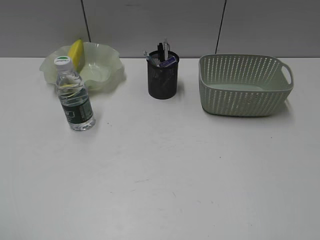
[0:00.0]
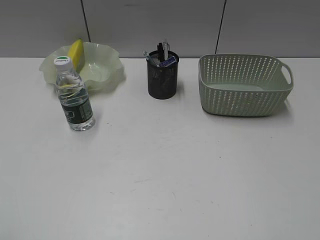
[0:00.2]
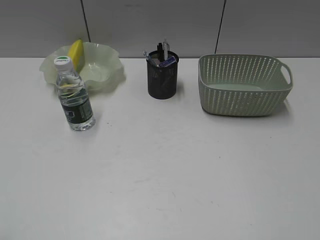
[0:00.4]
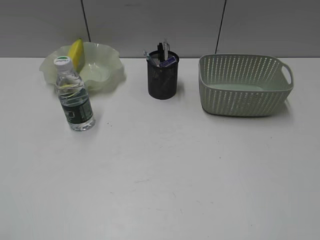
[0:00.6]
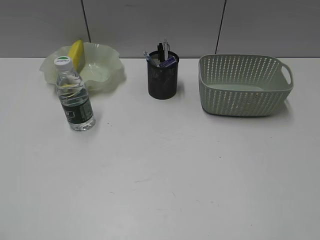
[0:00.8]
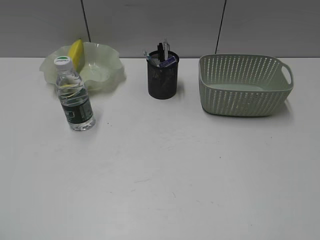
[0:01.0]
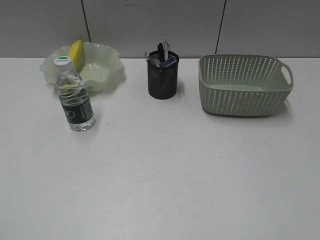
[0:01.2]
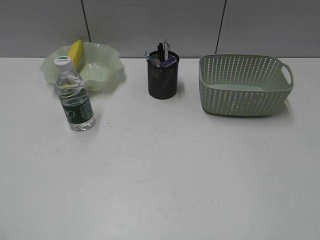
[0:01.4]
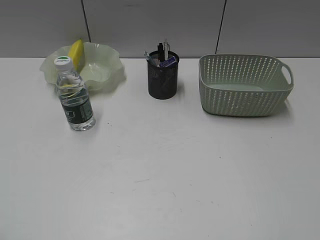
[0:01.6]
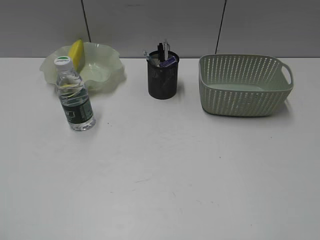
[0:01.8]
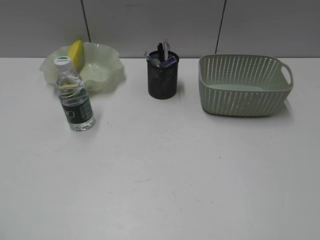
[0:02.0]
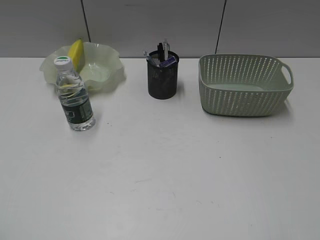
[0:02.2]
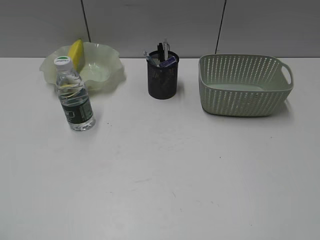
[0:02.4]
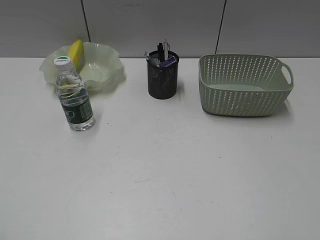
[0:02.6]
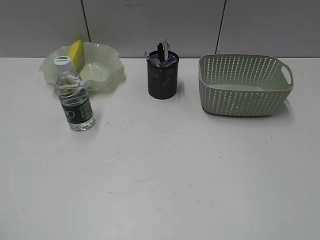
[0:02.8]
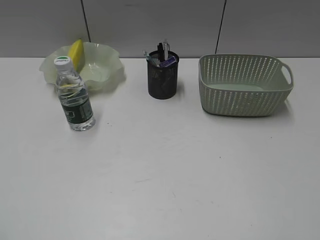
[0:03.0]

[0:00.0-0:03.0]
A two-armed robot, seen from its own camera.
0:01.6 to 0:03.0: The two grippers keep their place.
